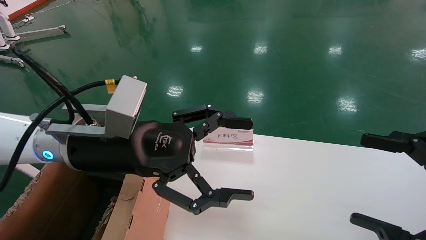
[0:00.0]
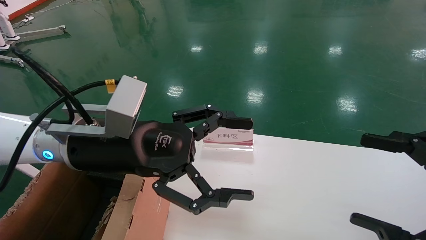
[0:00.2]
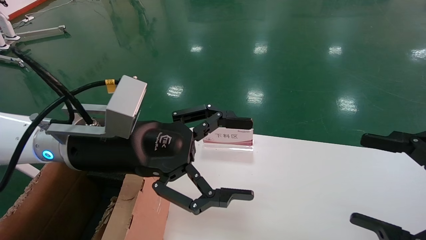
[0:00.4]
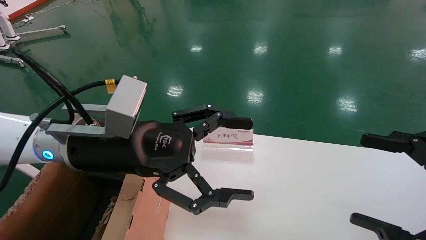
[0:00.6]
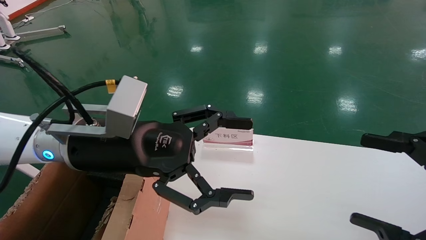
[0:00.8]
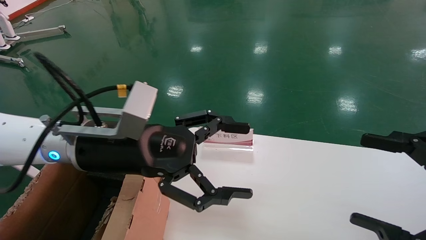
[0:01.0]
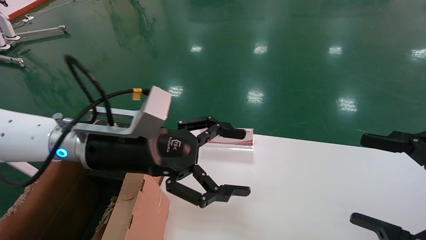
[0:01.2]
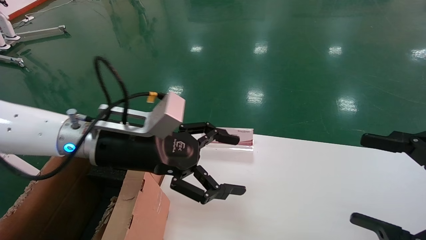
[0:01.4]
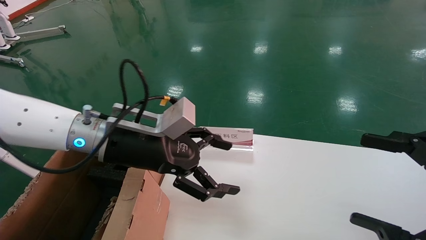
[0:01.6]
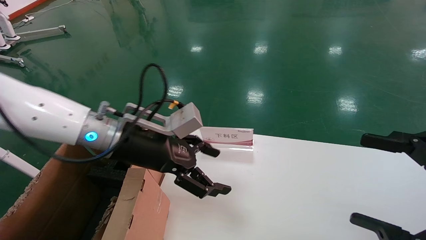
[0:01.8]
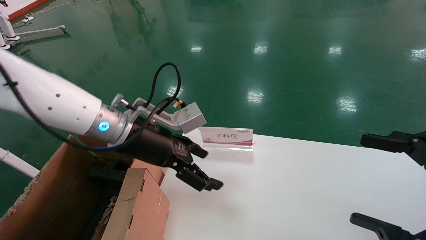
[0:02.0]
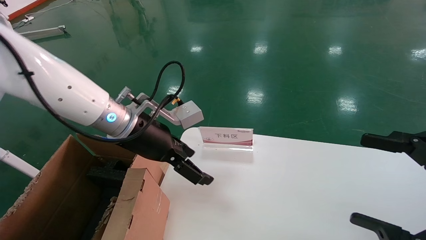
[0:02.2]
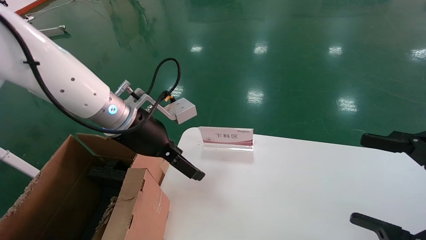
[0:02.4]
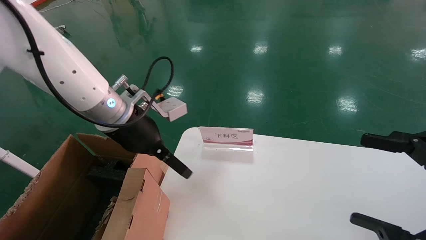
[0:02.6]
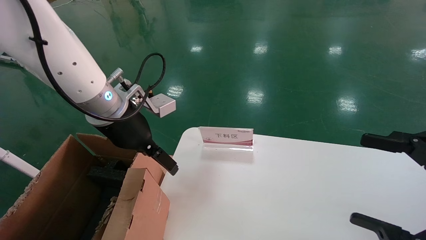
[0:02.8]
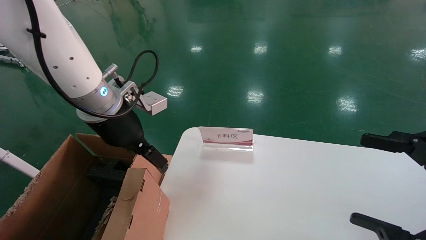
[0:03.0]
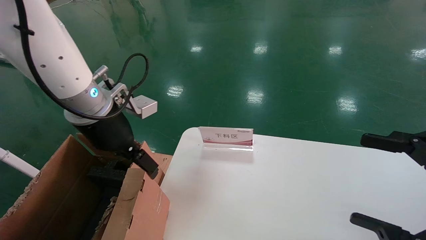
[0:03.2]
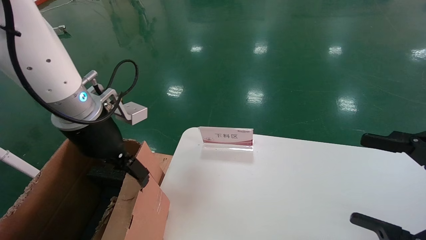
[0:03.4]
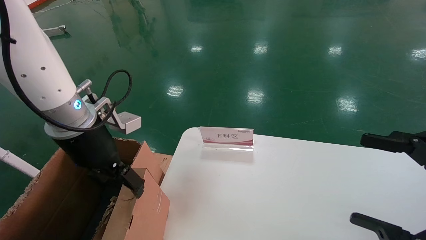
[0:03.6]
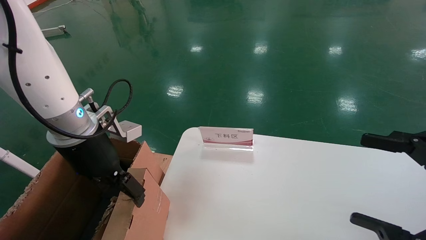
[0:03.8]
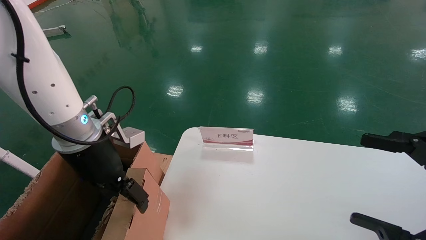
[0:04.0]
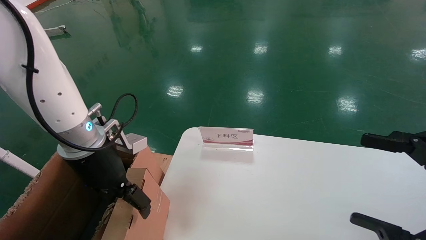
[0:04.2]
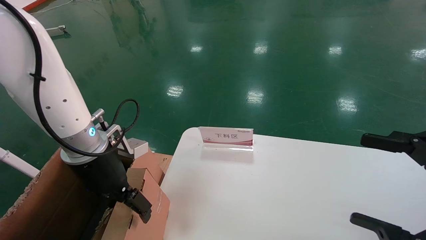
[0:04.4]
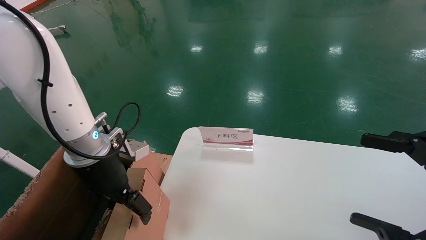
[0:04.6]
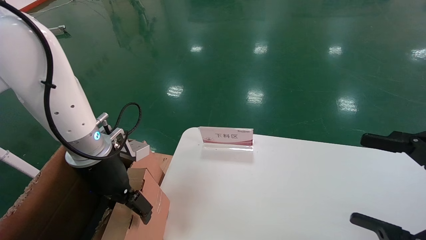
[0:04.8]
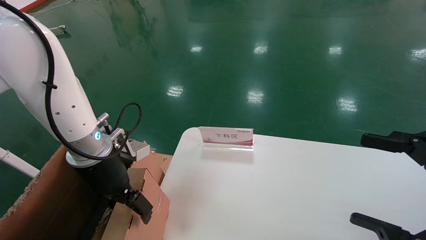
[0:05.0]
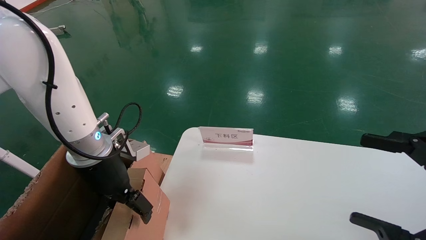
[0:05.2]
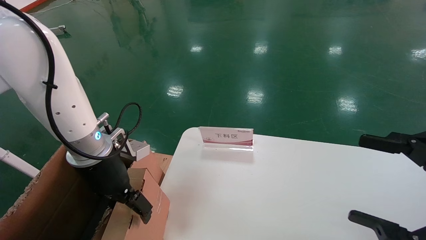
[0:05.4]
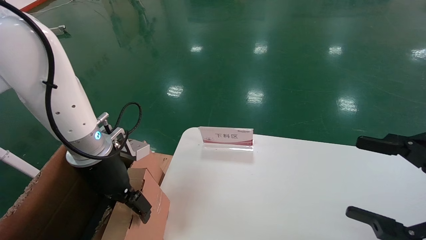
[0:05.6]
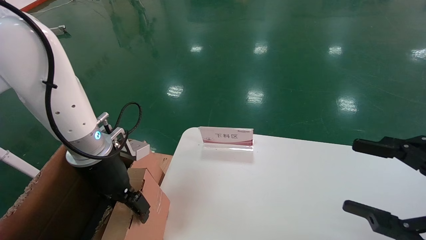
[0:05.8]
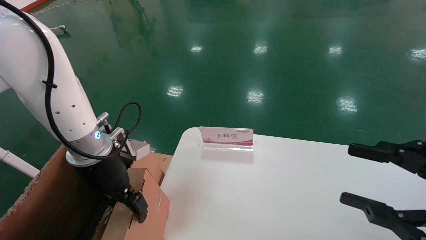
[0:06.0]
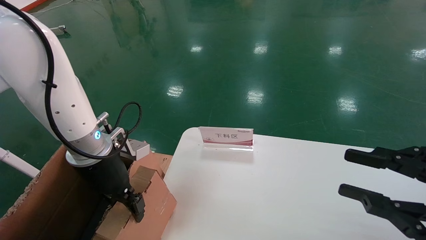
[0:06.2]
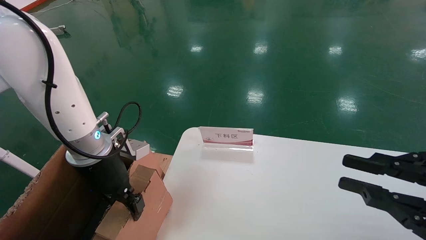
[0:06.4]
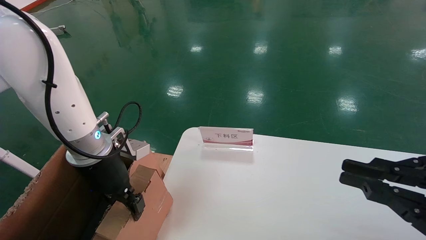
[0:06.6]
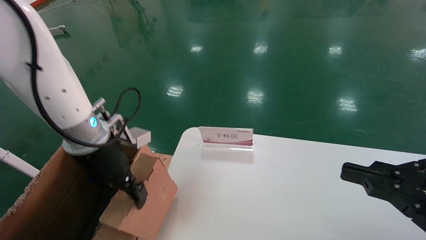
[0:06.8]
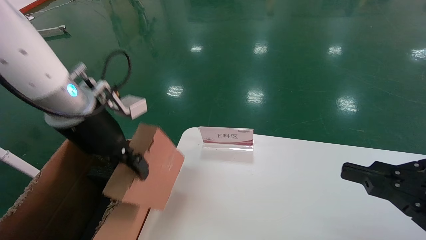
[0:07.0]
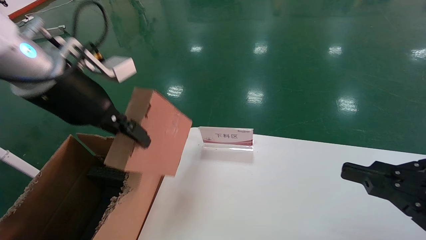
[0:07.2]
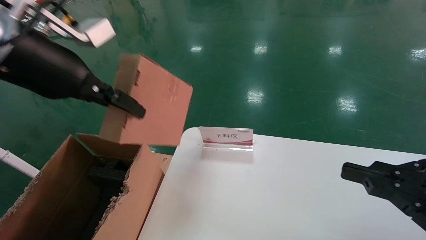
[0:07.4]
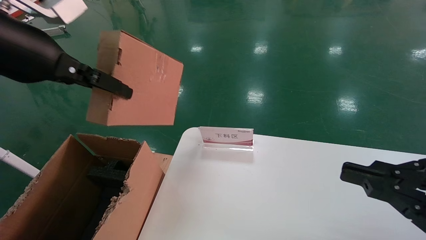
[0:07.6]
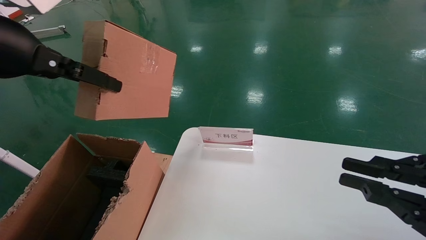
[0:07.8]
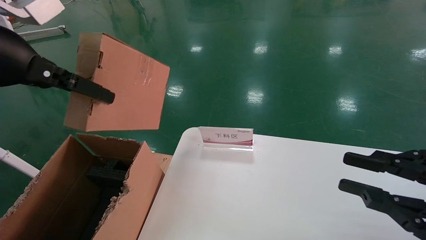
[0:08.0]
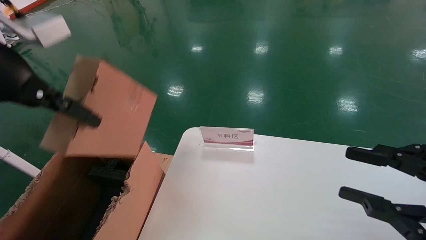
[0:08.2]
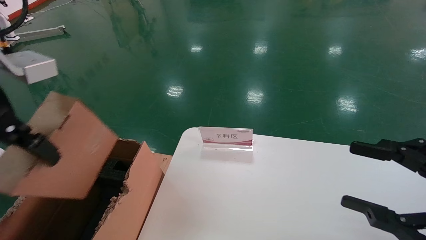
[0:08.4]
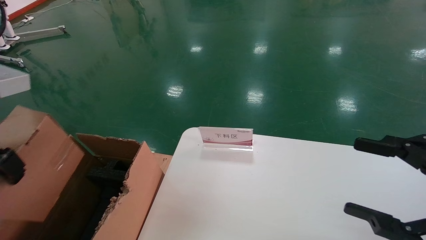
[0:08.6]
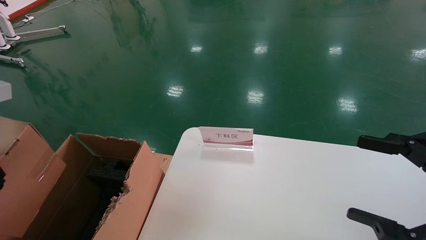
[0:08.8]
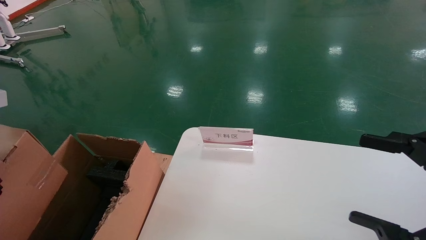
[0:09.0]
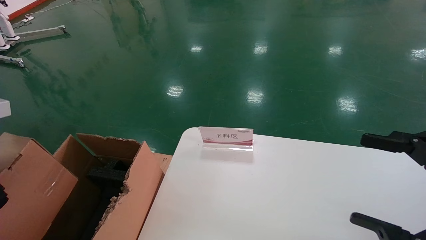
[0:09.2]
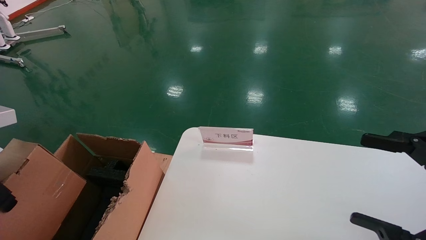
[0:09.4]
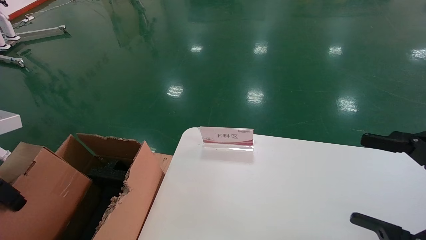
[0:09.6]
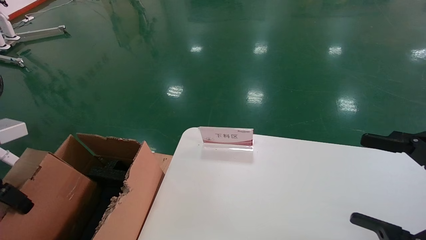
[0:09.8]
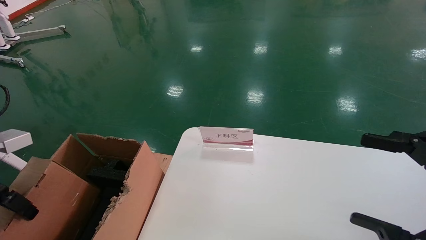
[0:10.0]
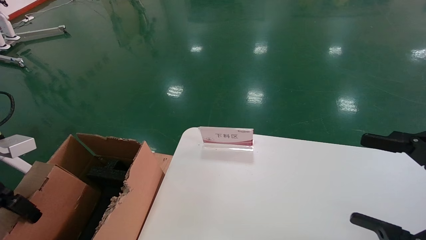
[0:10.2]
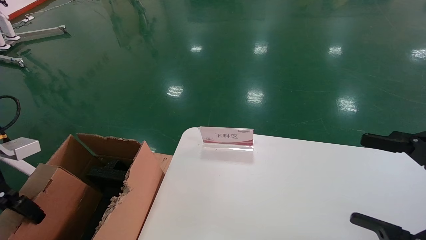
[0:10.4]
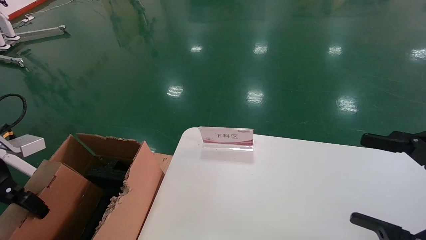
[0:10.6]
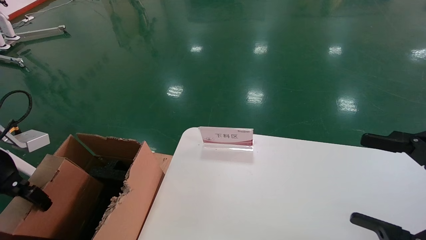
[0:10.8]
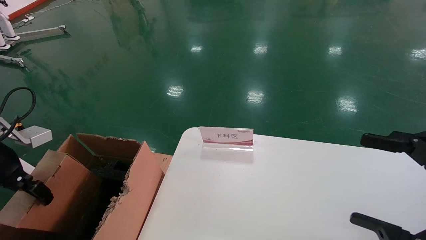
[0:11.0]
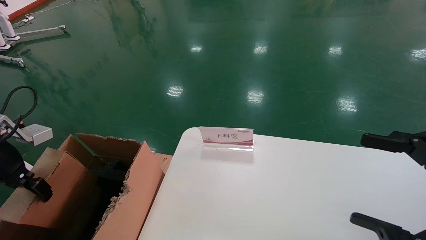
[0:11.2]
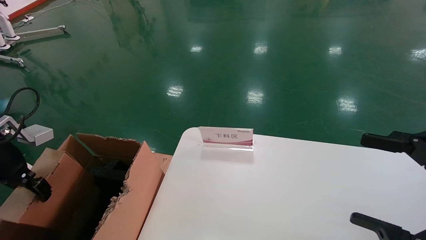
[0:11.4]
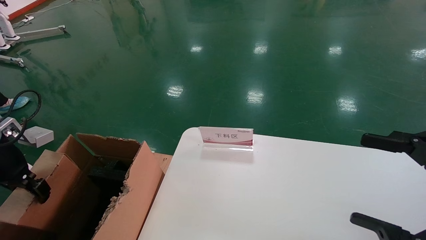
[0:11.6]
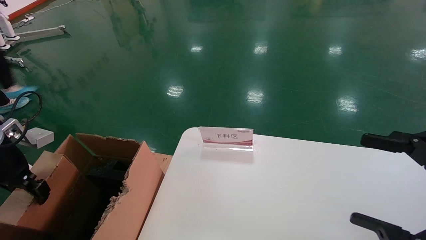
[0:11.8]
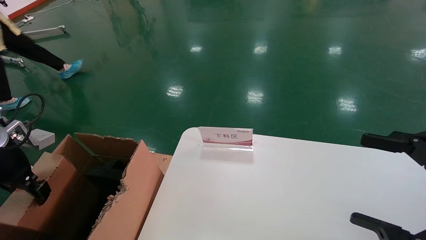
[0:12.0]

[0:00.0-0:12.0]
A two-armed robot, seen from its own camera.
Task of the whole recording: pick up the small cardboard box and load it into the large cardboard box.
Step, 0:01.2 to 0:08.0: Pick up the mouse and power cord box.
0:00.0 to 0:01.6: The left gripper travels forward by roughly 5 cm.
0:01.6 to 0:03.0: The left gripper is displaced upward by some 5 cm.
0:03.0 to 0:04.4: The left gripper moves downward, roughly 5 cm.
0:04.4 to 0:06.0: Both grippers stay put.
0:06.0 to 0:07.6: The right gripper closes, while the left gripper goes roughly 20 cm upward and backward, and closes.
0:07.6 to 0:09.0: The right gripper opens up. The left gripper goes about 5 cm backward.
0:09.0 to 0:10.4: The left gripper heads downward, to the left and forward, covering about 15 cm.
0:10.4 to 0:12.0: The left gripper is displaced forward by about 5 cm.

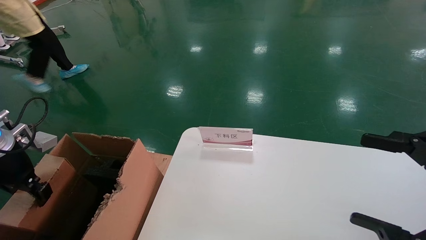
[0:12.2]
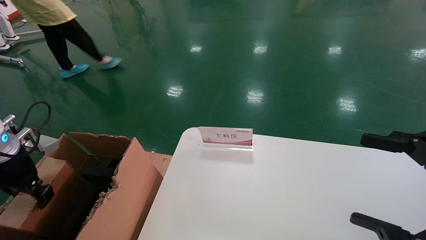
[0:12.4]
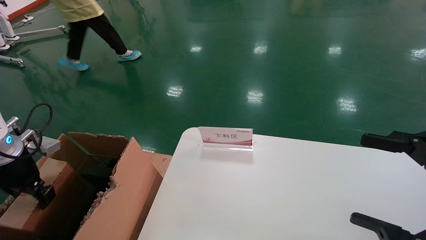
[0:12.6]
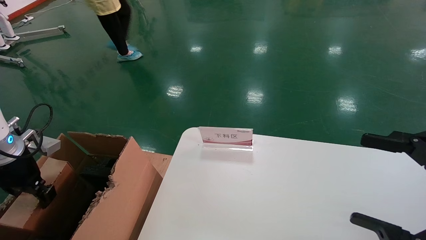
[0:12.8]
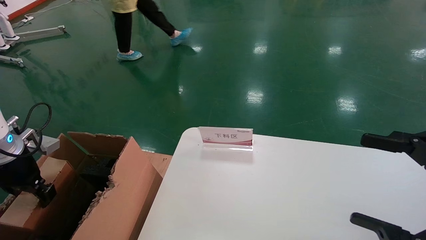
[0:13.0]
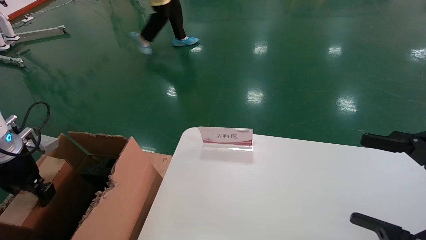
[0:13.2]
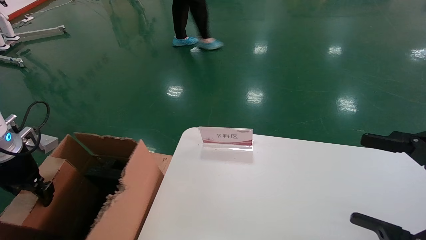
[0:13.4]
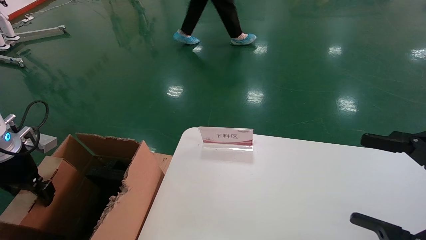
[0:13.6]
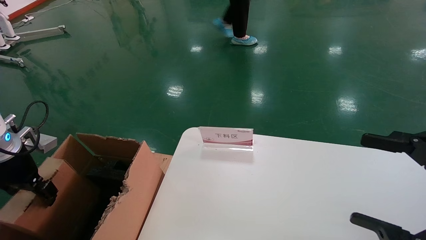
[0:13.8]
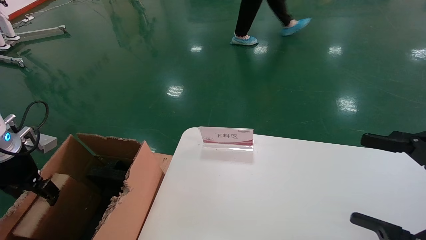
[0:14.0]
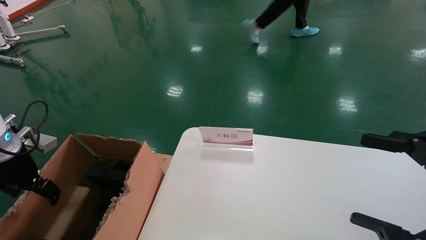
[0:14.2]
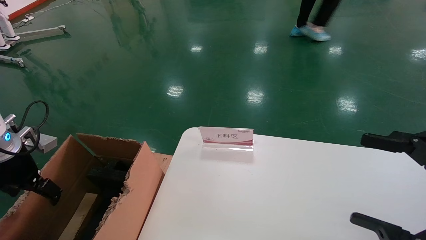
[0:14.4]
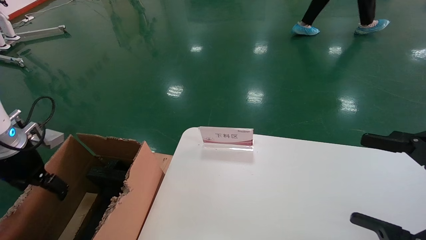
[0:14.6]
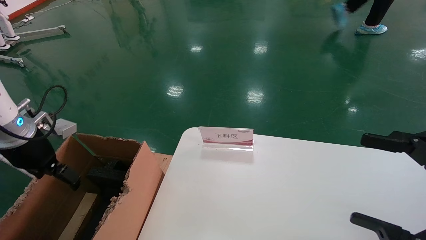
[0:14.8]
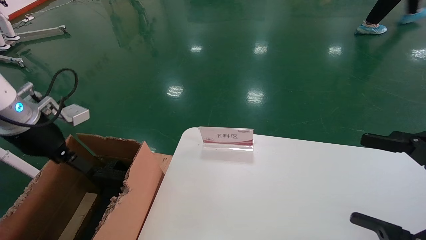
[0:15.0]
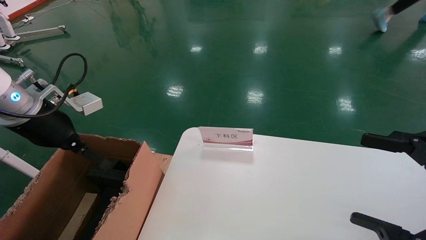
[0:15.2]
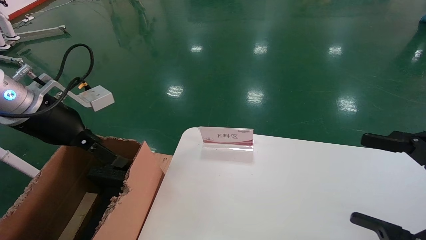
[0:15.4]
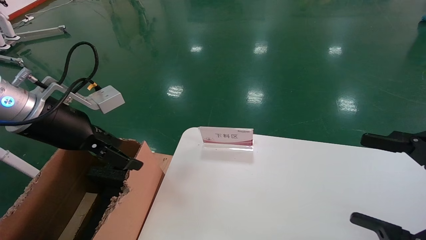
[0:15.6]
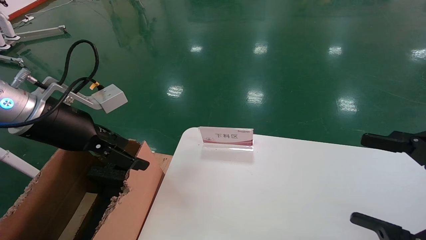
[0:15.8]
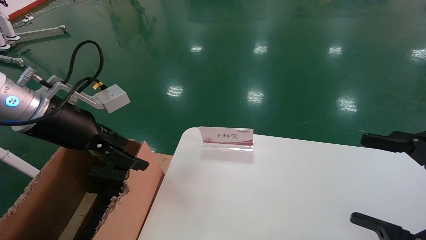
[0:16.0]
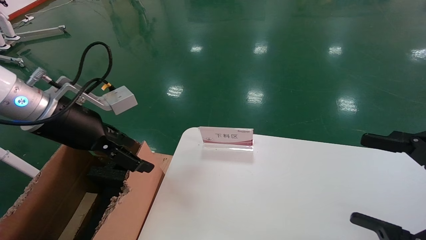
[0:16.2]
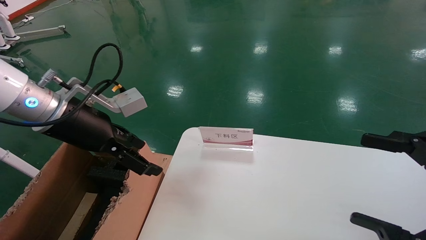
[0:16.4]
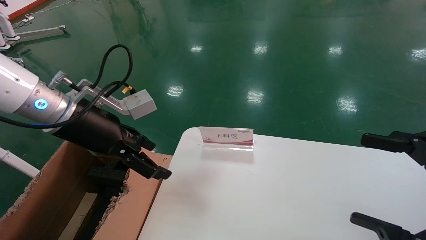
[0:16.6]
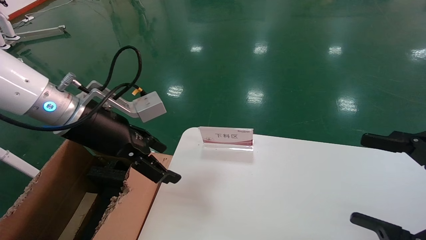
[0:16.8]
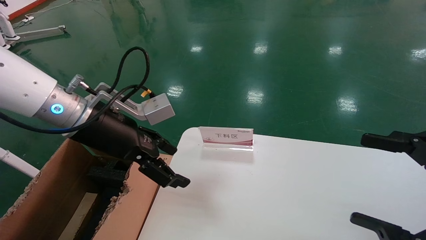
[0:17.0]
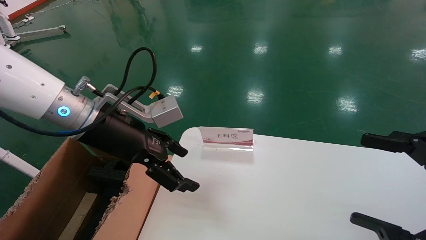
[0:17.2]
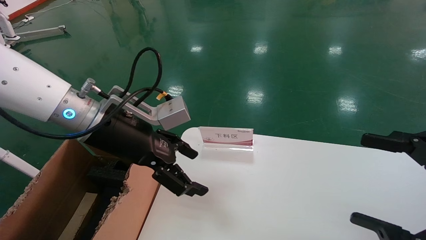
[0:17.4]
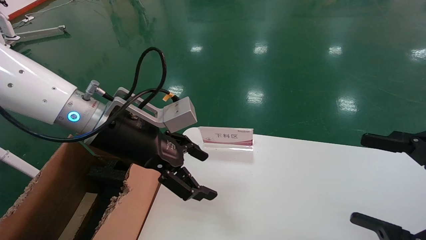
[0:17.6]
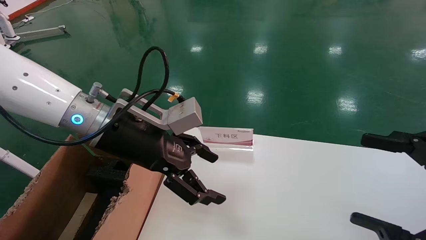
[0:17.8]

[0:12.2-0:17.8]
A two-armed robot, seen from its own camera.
Task of the whole recording: pick up the small cardboard box and load it into the large cardboard box.
Step, 0:12.2 to 0:17.0: Place the mouse and power cord box into the case.
0:12.2 to 0:13.6: The grippers stay close to where they were, moving slightly.
0:13.6 to 0:15.0: The left gripper moves to the right and upward, some 10 cm, and opens its fingers.
0:15.0 to 0:16.4: The left gripper heads to the right, covering about 10 cm.
0:16.4 to 0:17.8: The left gripper goes some 10 cm to the right.
